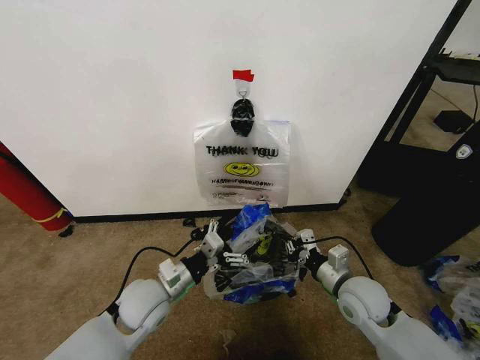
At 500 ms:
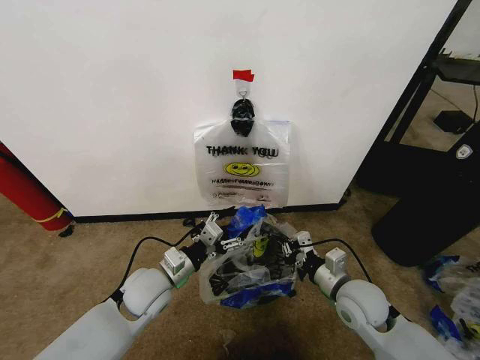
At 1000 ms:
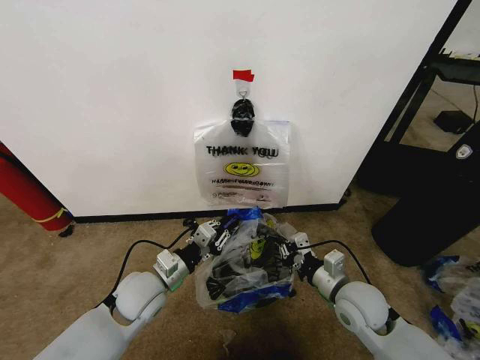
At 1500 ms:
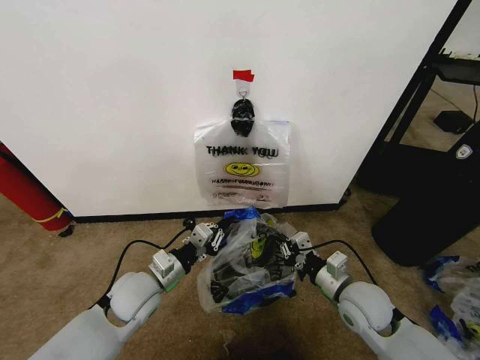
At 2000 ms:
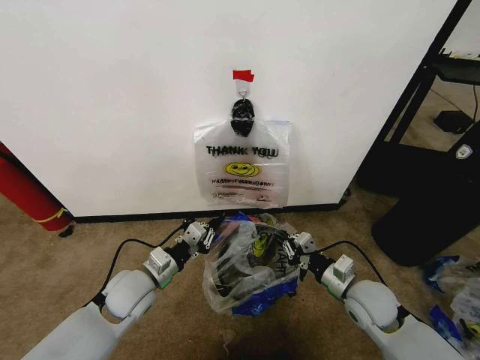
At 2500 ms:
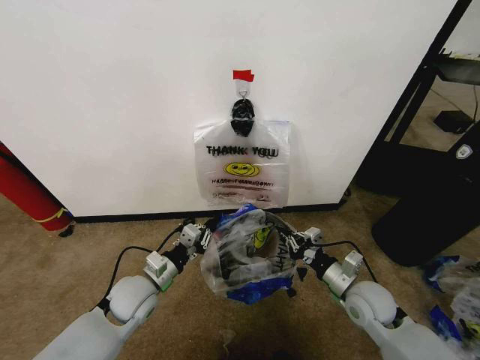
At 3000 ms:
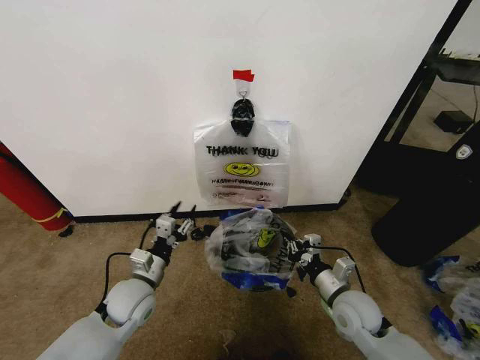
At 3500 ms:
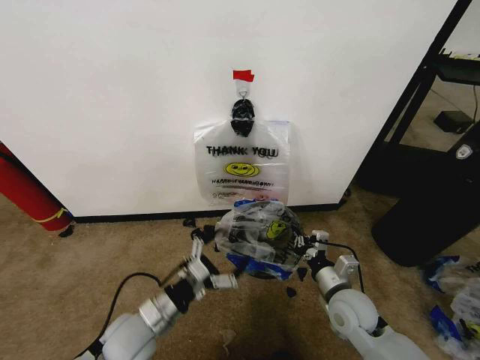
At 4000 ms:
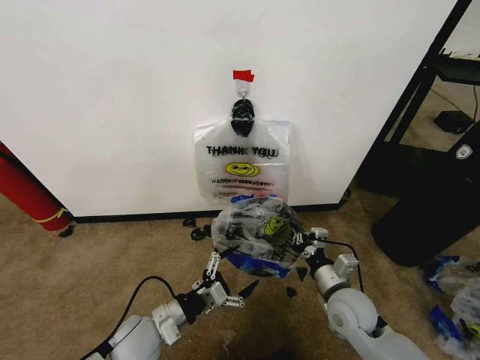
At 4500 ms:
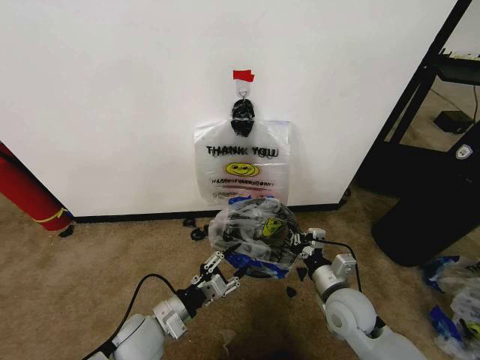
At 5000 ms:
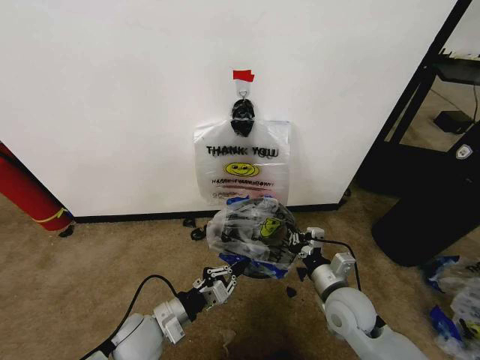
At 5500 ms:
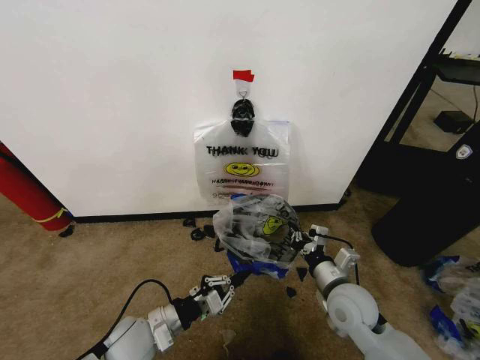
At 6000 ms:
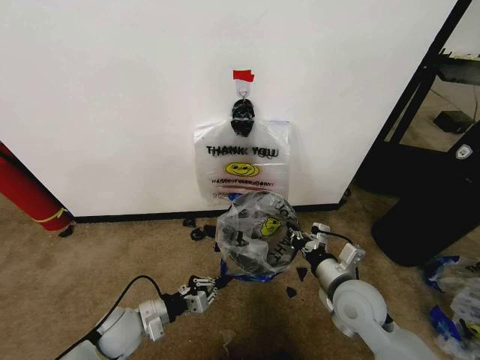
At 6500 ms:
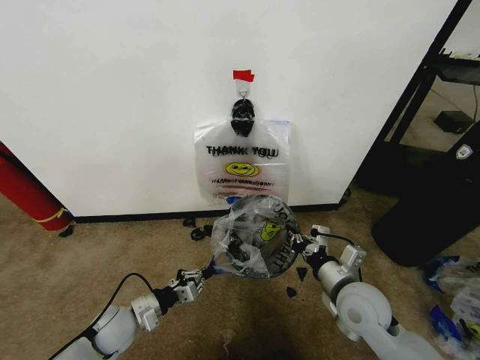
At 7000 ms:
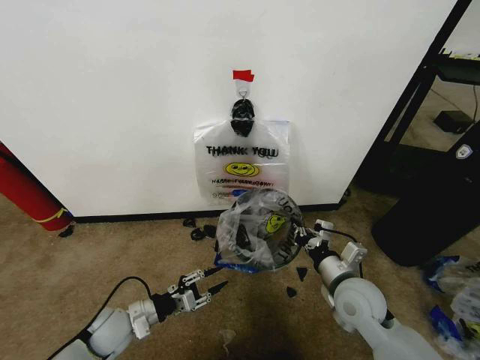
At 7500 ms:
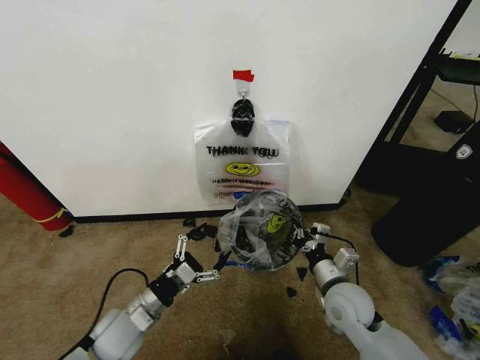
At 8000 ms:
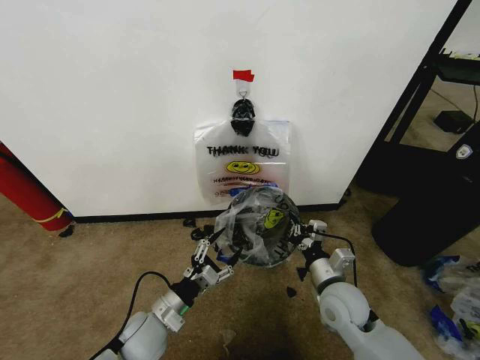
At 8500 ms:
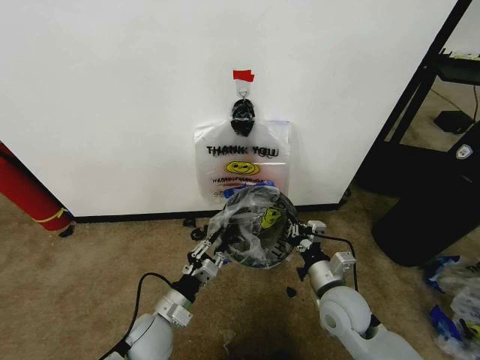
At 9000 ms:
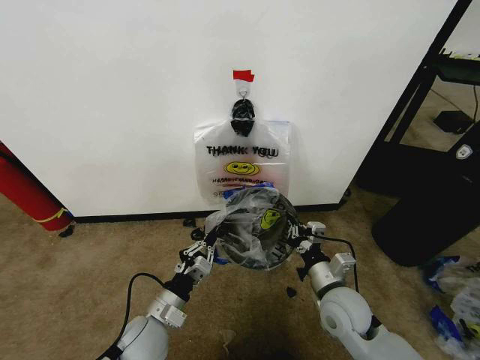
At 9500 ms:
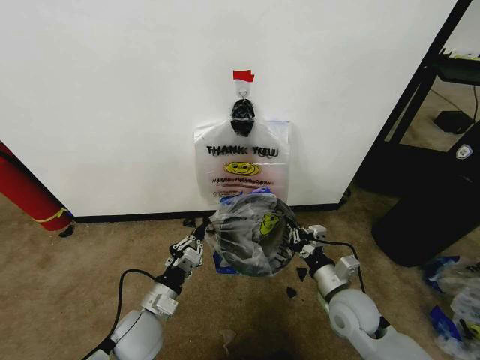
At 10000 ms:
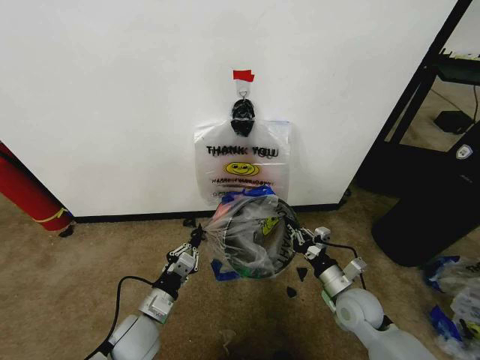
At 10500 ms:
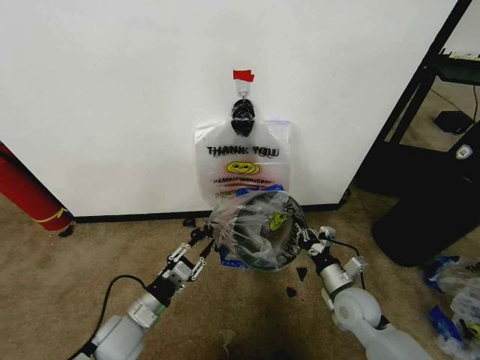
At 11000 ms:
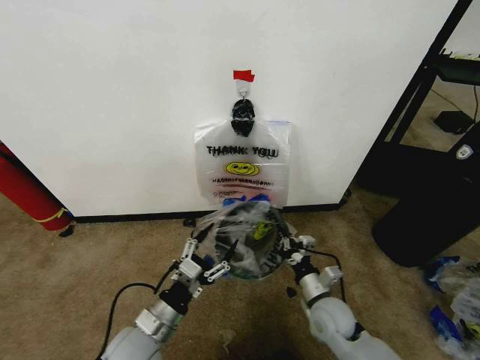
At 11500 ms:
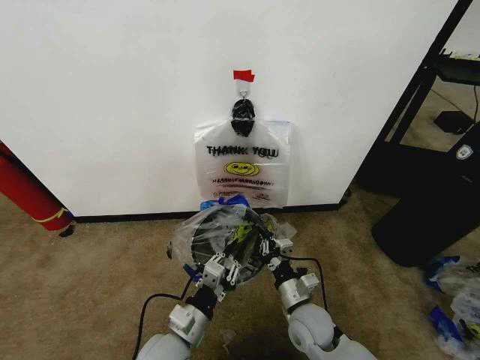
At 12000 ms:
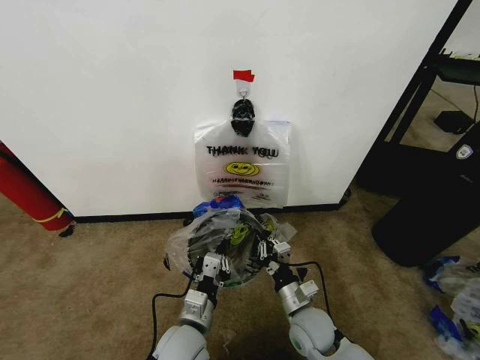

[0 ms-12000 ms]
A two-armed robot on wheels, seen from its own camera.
Task of the whole recording: Pick up the garbage bag from the wall and place it over the trash bin.
0 ms to 2000 ms: The left gripper closes its fingers.
2000 ms to 4000 ms: The left gripper heads backward, covering about 10 cm, and opens.
4000 ms to 6000 ms: The left gripper heads to the left, covering about 5 cm, and closes up; the right gripper shifts about 5 cm upward.
6000 ms to 8000 ms: The left gripper shifts about 5 cm to the right, and opens.
8000 ms to 10000 ms: The left gripper closes its fingers. The right gripper shifts some 5 cm to the right.
10000 ms to 12000 ms: The left gripper heads to the right, covering about 10 cm, and opens, then closes again. The right gripper moves to the left, approximately 10 cm.

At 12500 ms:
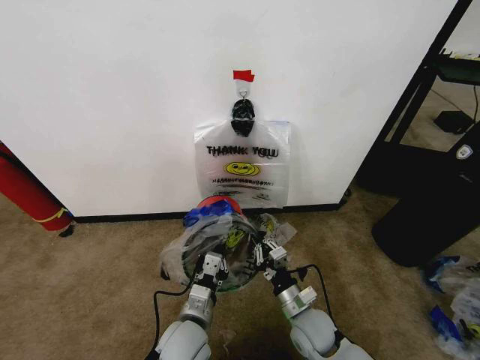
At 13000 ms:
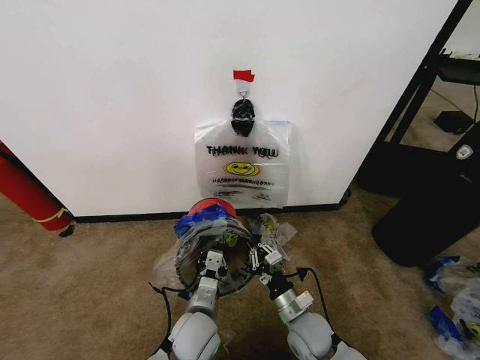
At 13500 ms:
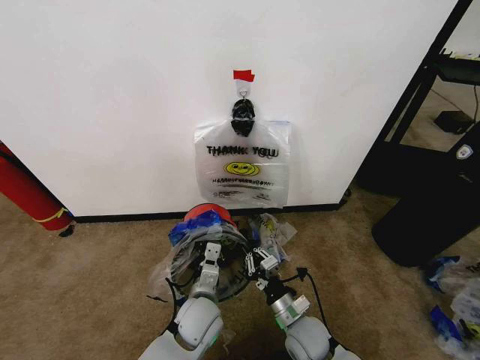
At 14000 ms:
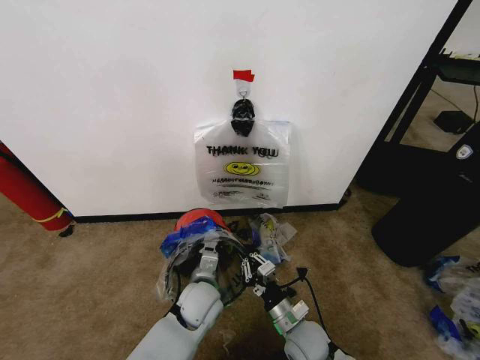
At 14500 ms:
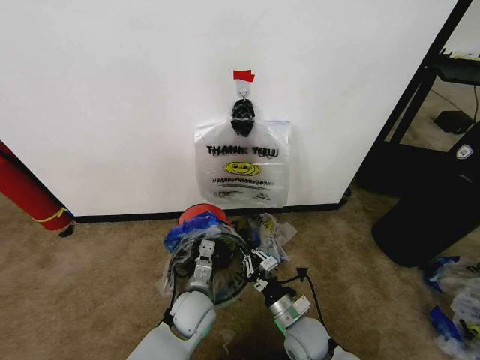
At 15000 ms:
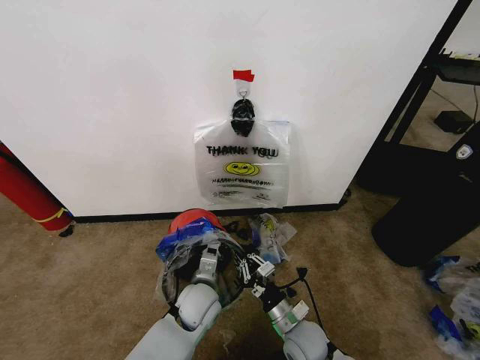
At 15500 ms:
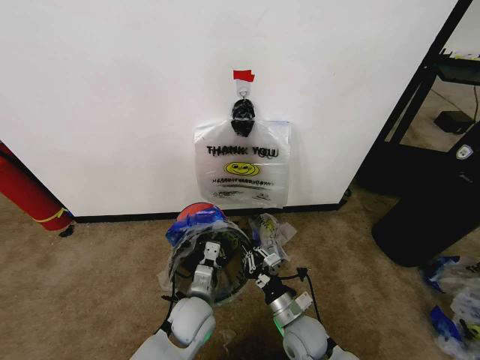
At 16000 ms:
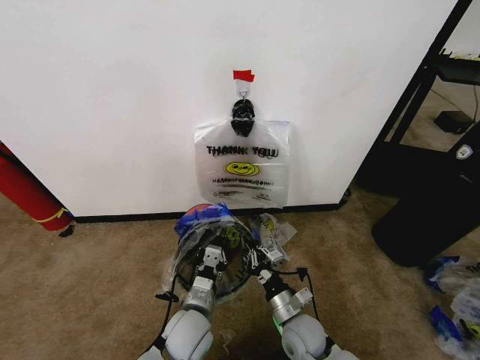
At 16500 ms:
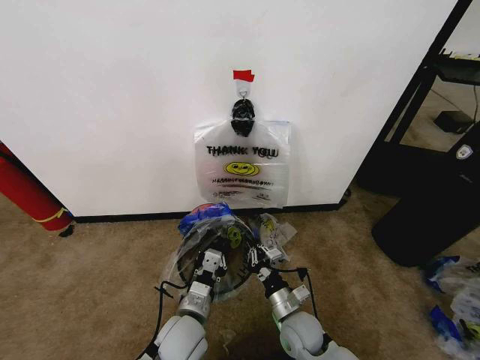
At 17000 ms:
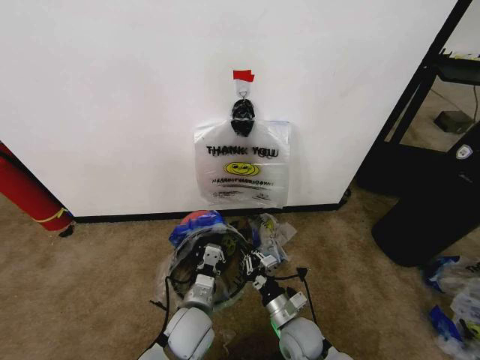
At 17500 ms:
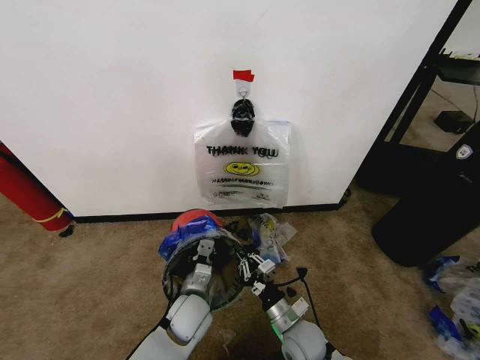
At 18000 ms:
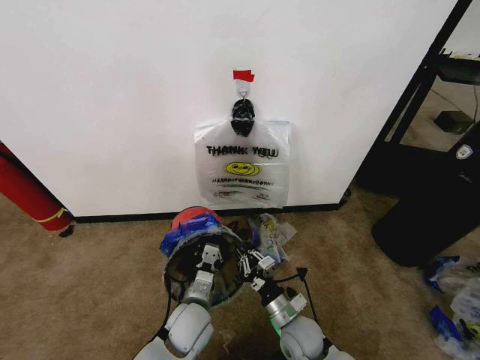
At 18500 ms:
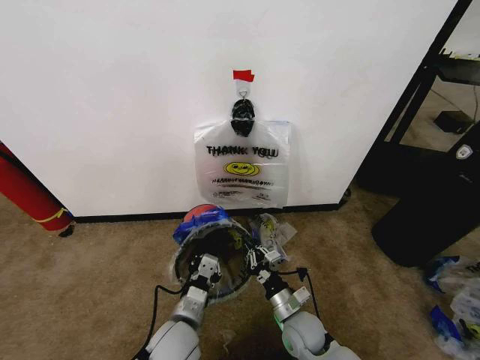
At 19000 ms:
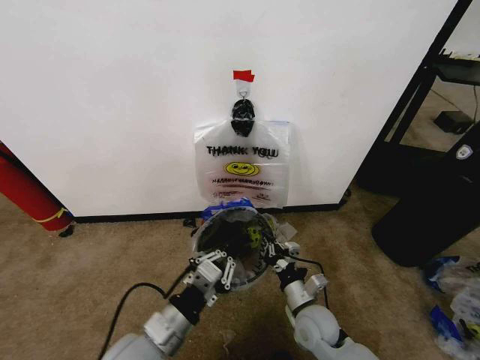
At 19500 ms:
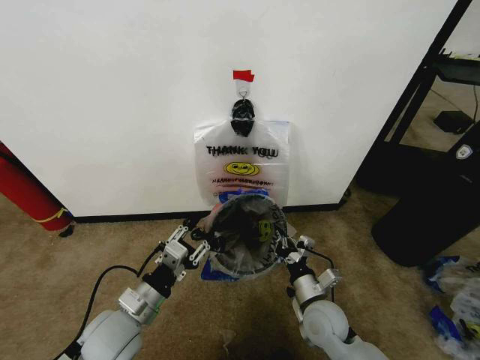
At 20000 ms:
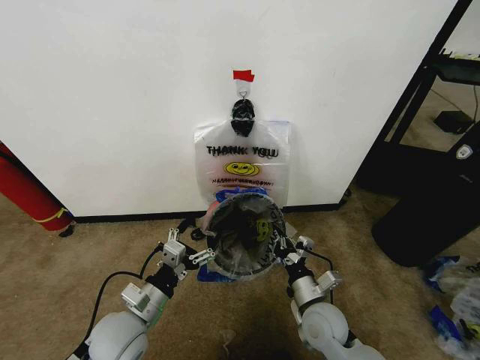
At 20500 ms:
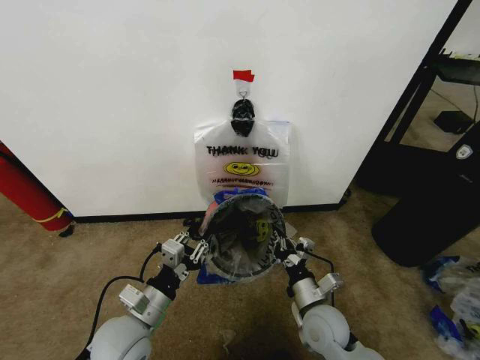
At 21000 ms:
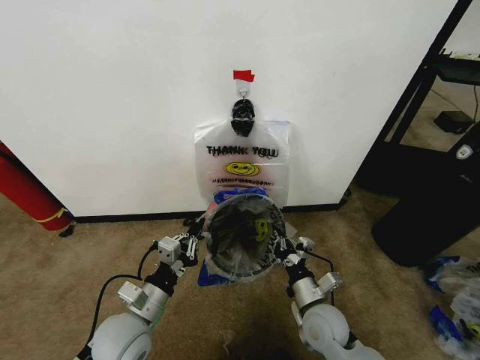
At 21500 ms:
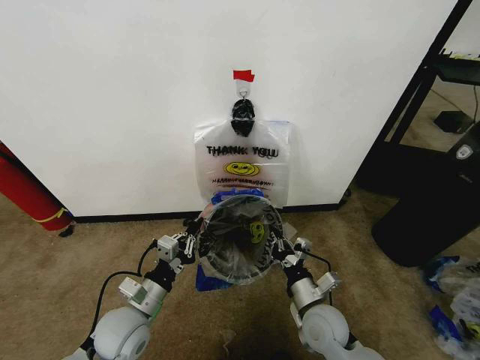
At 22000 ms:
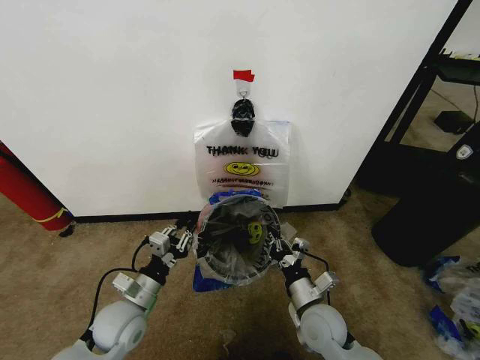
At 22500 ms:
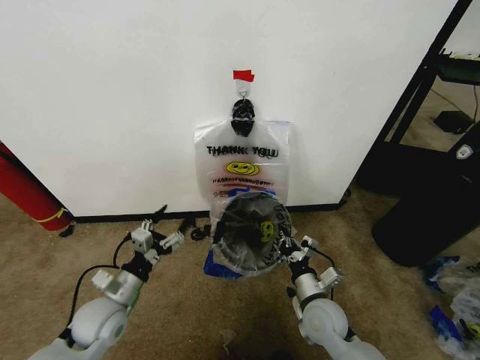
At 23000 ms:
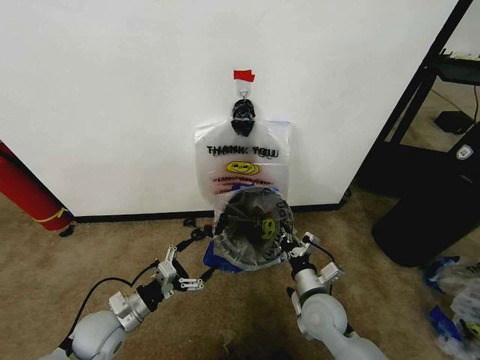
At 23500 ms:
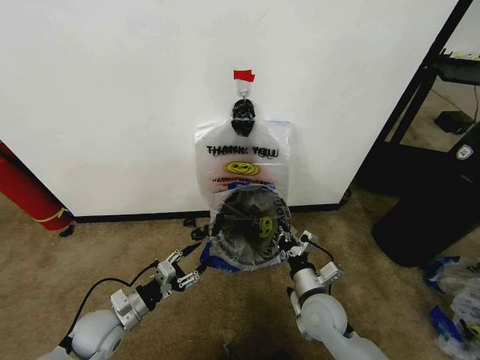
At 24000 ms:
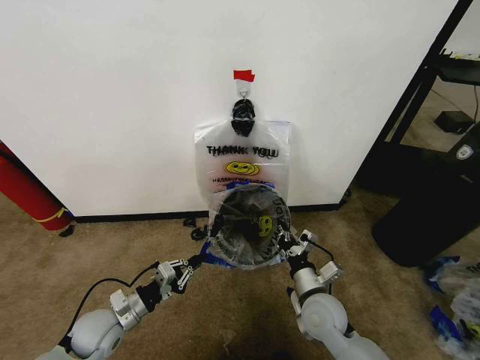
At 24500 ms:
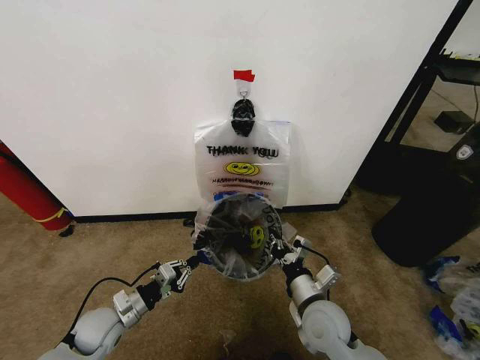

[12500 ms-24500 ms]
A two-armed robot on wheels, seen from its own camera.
Task of the whole recording: Pick up the garbage bag from the wall and place it over the trash bin.
12500 ms to 14500 ms: The left gripper shifts about 5 cm forward.
14500 ms to 16500 ms: The left gripper travels backward by about 5 cm.
18500 ms to 20500 ms: The left gripper is displaced to the left and upward by approximately 10 cm, and opens and closes again, while the right gripper moves upward, roughly 5 cm.
20500 ms to 22500 ms: The left gripper goes some 10 cm to the left, and opens.
22500 ms to 24500 ms: The left gripper shifts about 5 cm downward, and closes.

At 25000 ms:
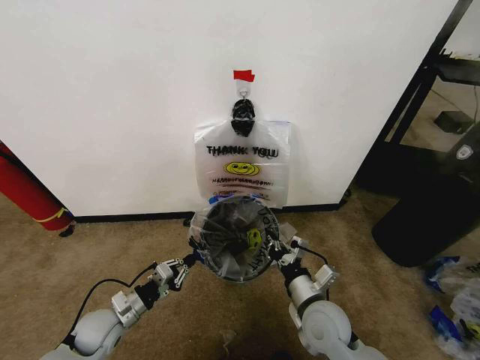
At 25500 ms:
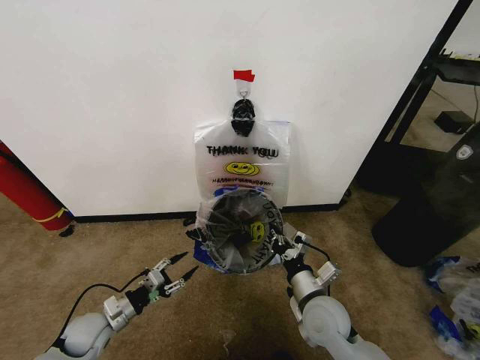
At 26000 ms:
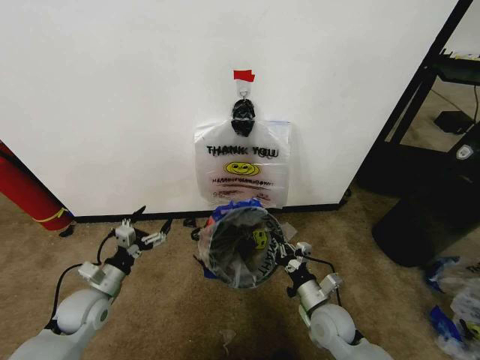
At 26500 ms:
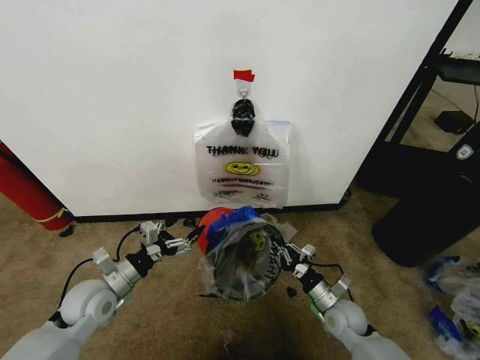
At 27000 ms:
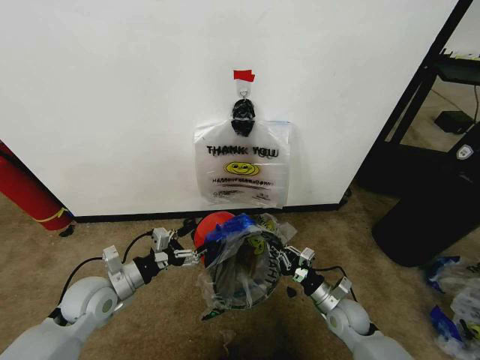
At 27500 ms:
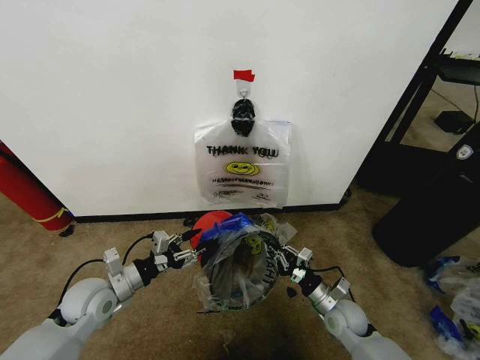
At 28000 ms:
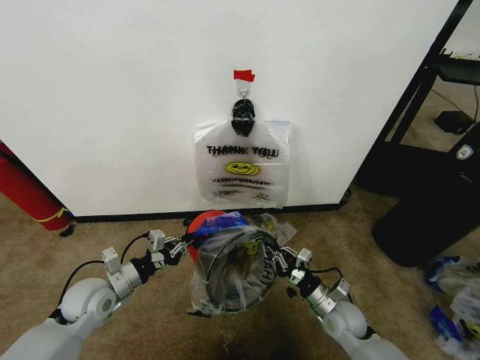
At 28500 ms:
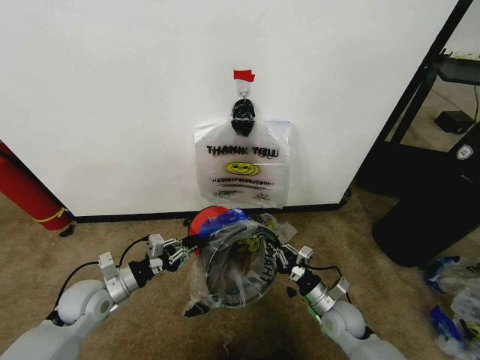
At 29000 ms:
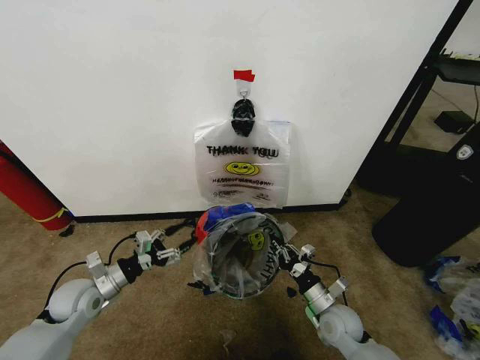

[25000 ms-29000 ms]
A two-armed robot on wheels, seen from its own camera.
Task of the whole recording: Pick up the garbage bag from the wall and place it over the trash bin.
25000 ms to 27000 ms: The left gripper travels upward by about 10 cm, and opens up. The right gripper travels downward and to the right by about 15 cm.
27000 ms to 29000 ms: The left gripper is displaced to the left by some 5 cm, and closes, then reopens.
